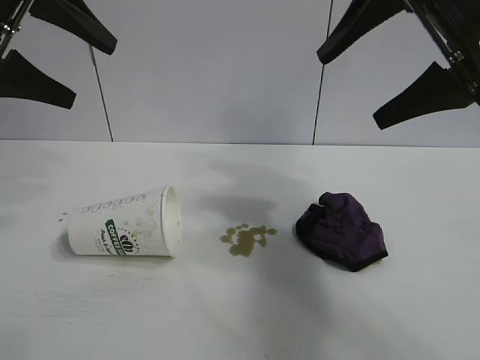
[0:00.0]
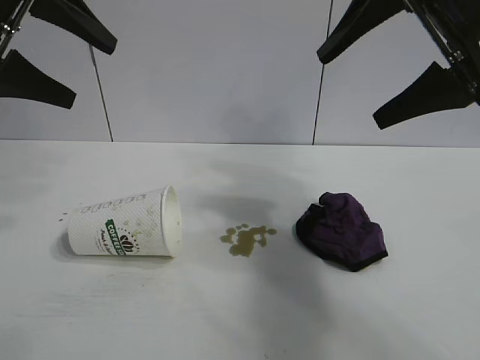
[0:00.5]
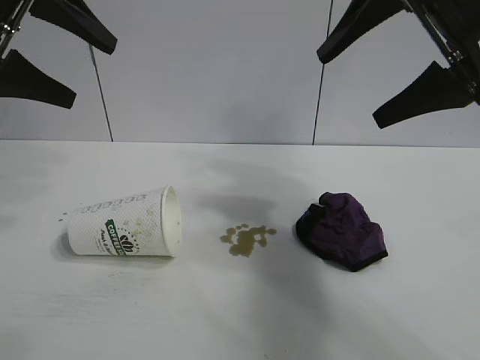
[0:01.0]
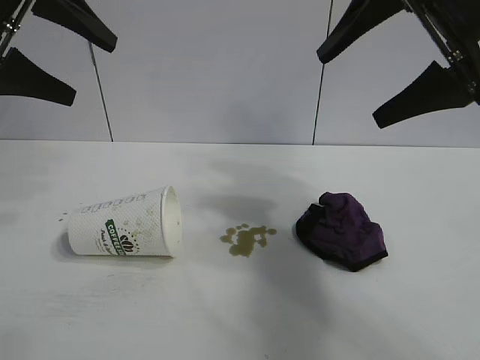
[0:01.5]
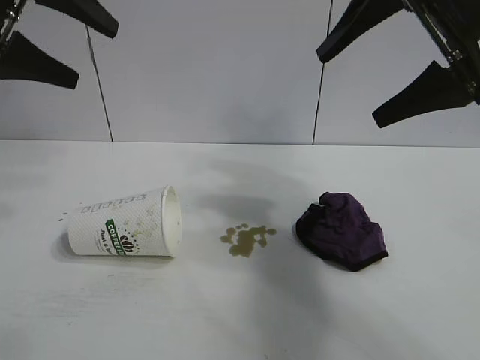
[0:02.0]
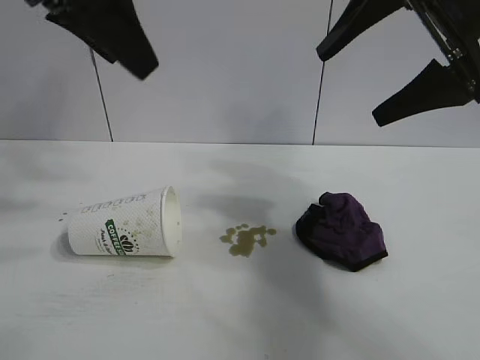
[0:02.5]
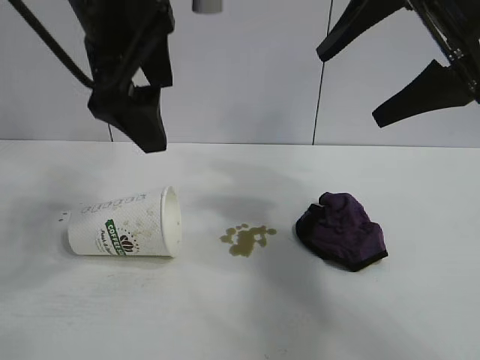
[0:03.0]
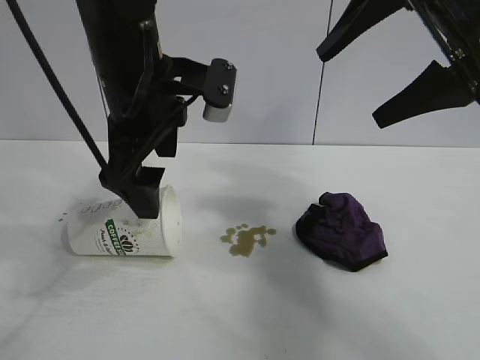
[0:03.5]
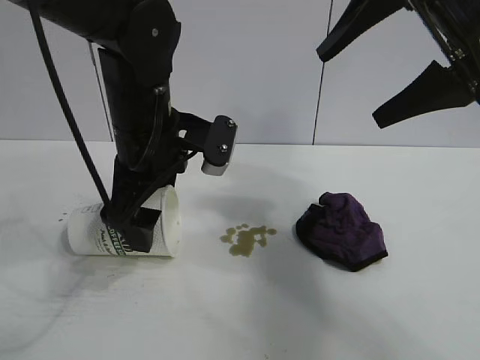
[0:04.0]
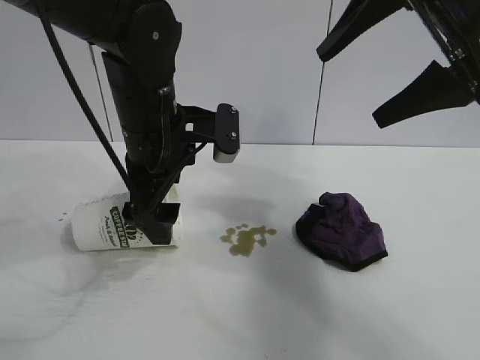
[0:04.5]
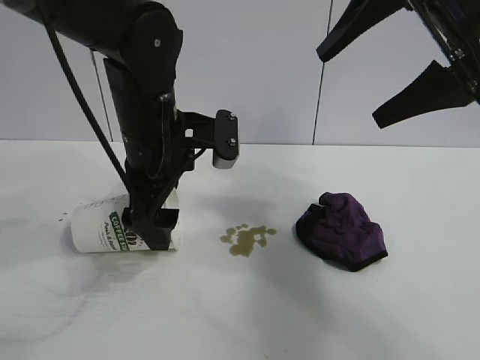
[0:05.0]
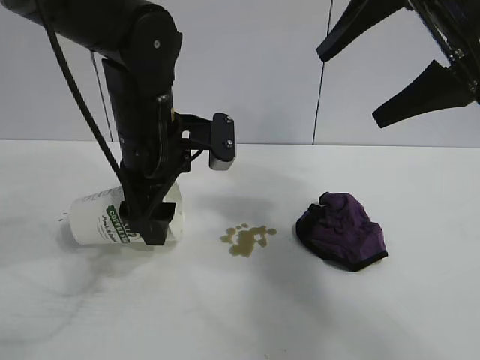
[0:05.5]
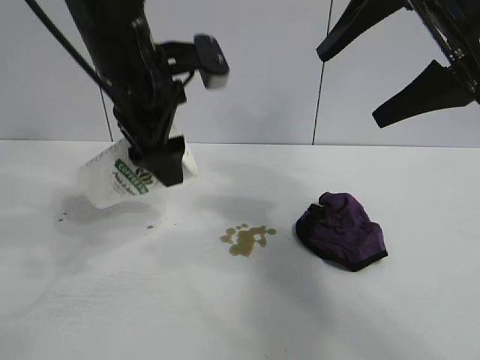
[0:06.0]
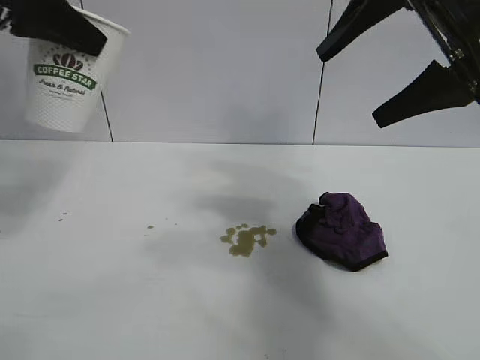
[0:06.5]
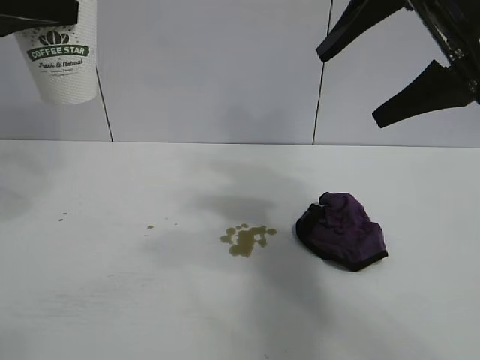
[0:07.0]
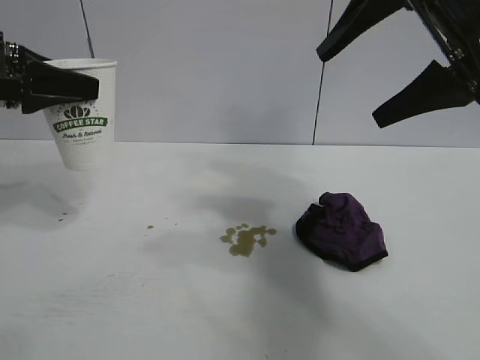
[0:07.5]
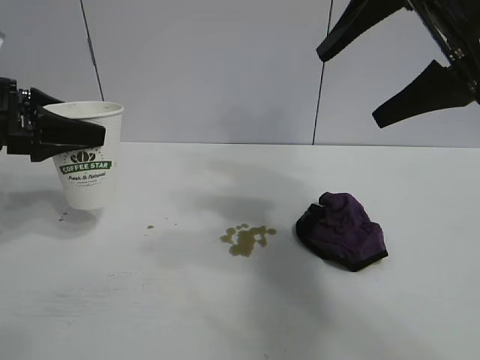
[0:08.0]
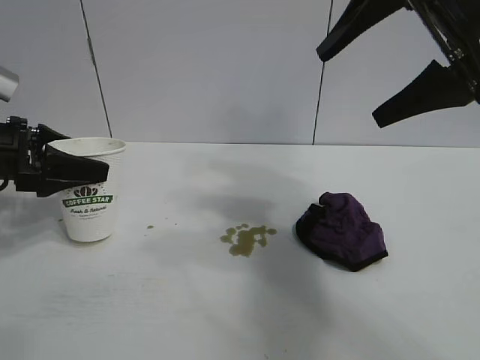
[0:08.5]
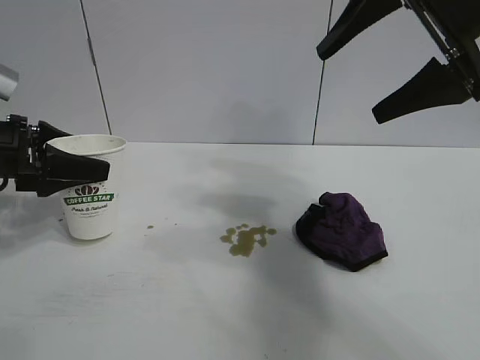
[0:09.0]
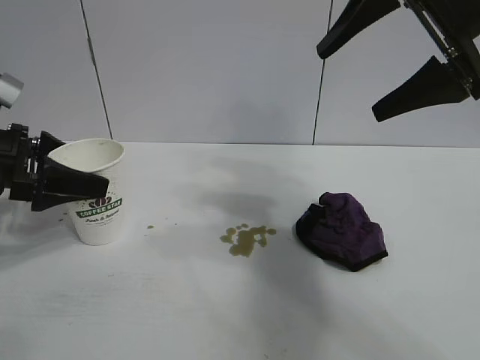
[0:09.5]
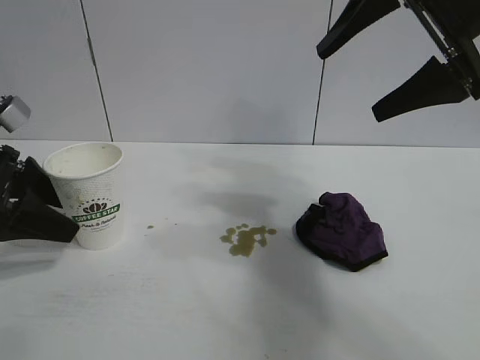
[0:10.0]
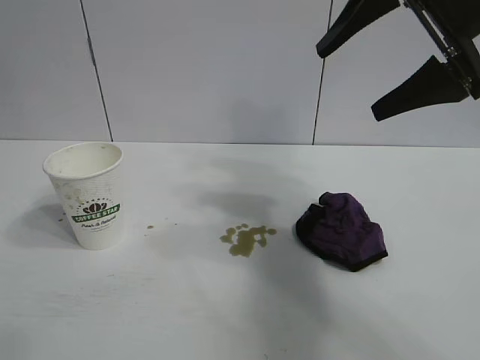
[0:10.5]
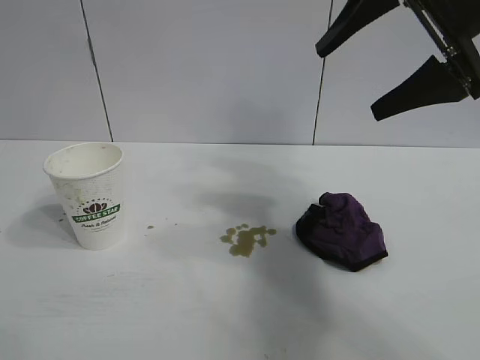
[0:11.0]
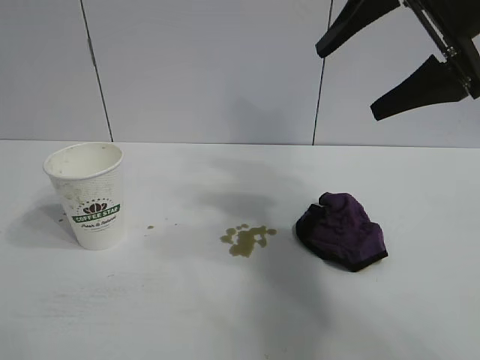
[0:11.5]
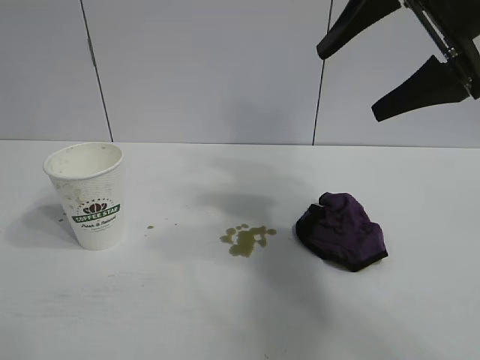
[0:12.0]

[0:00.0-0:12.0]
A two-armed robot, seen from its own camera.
Task of the whole recording: the left gripper pick up the fallen cup and place it upright, the right gripper grasp the black rag and wipe the stain on the table, the right gripper put the black rag back in its original position.
Step, 0:02.0 to 0:05.0: Grasp the paper cup with left gripper.
Step, 0:05.5 to 0:09.5: Stand the paper cup upright with left gripper.

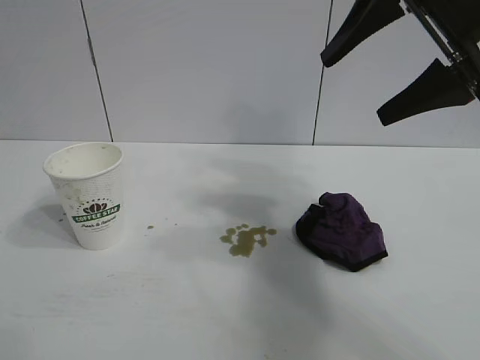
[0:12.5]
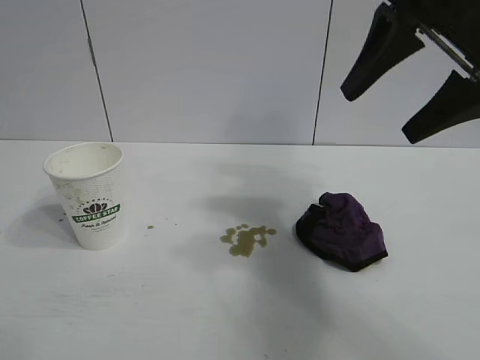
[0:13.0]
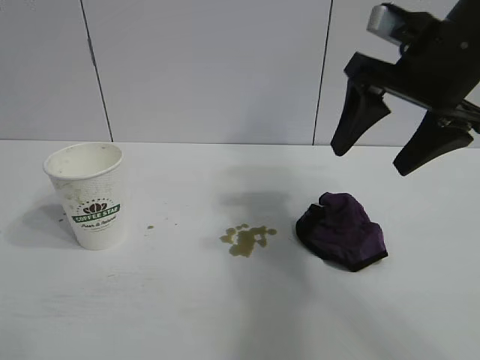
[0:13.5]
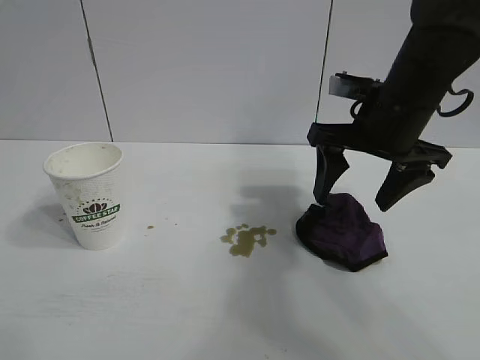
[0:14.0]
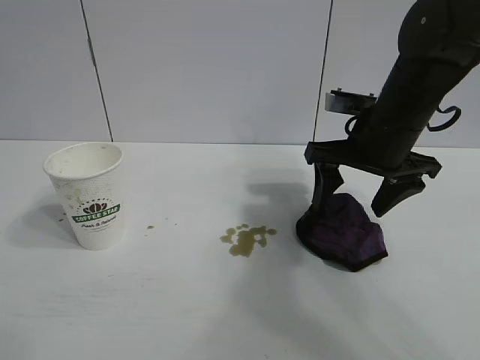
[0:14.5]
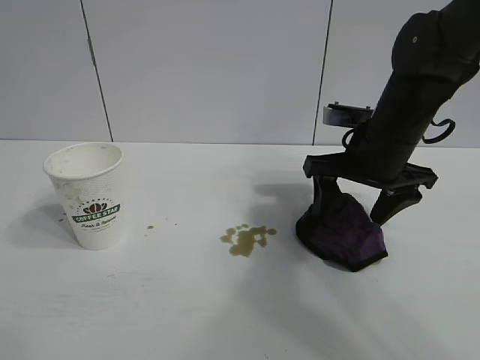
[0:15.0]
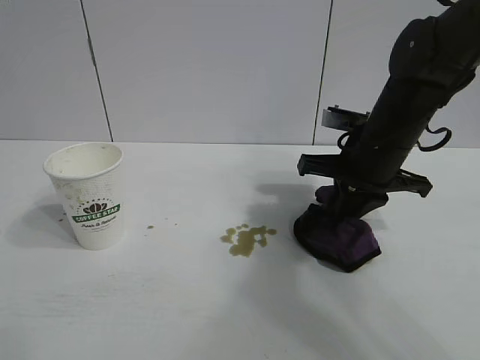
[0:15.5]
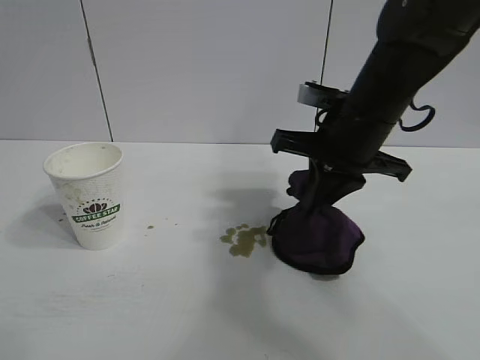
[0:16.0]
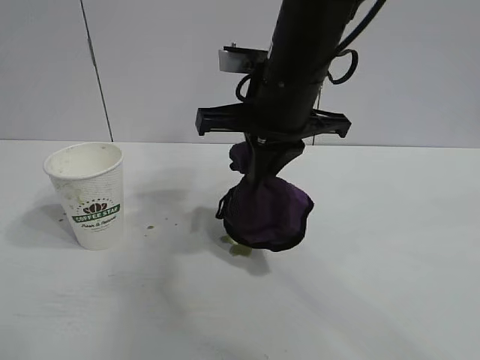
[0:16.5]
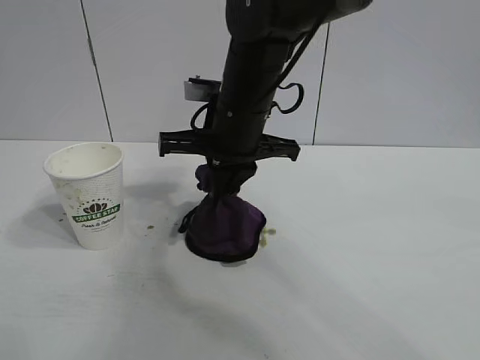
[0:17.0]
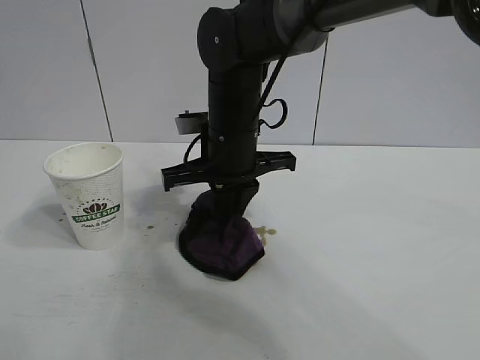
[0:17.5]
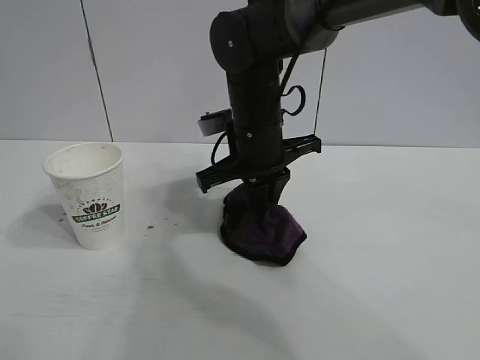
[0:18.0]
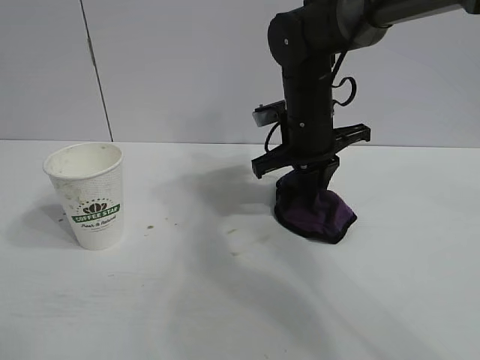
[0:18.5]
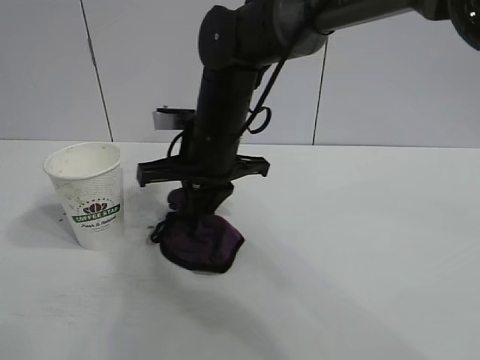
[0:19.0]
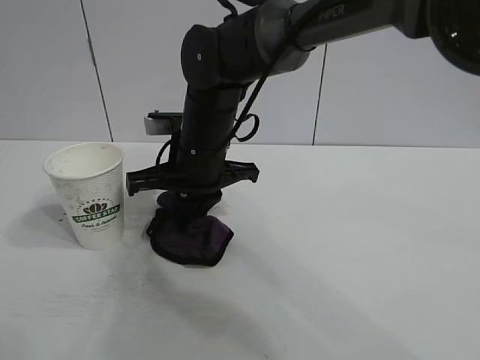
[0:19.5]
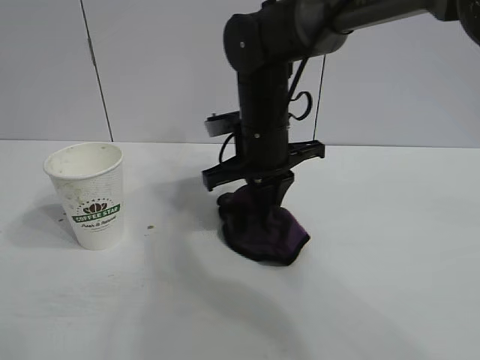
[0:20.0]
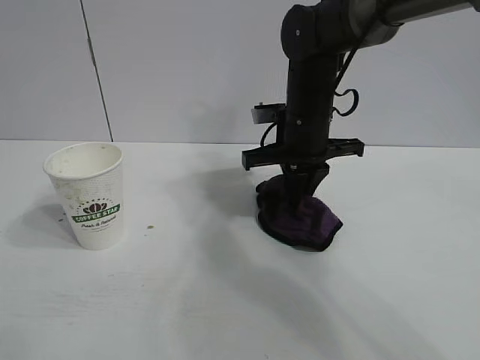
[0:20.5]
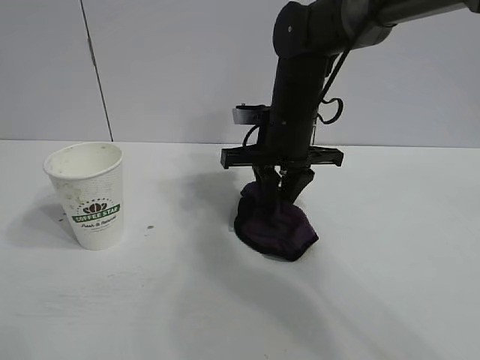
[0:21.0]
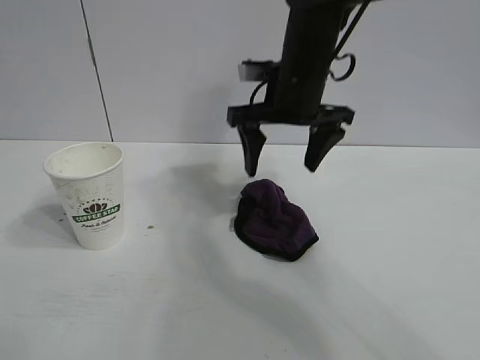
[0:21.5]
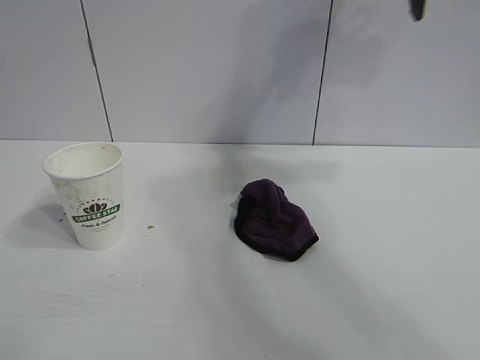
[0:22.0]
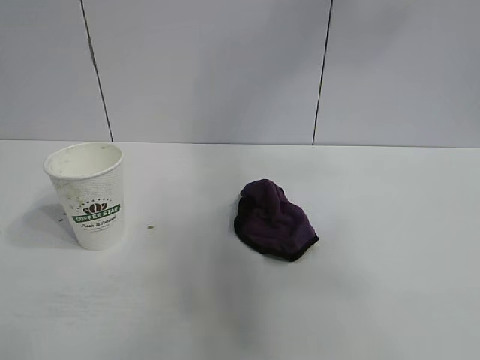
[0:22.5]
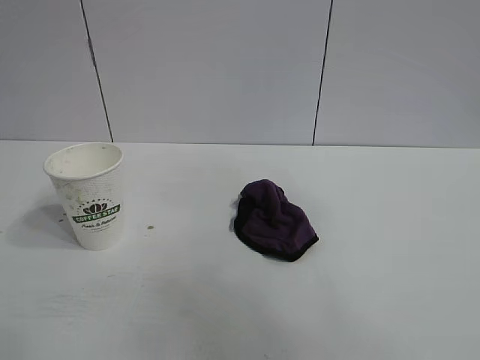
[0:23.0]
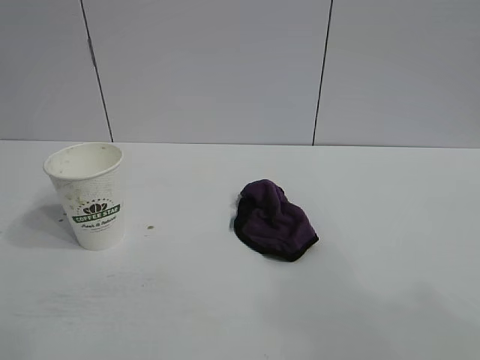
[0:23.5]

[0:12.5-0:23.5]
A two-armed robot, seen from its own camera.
Task of the whole recording: the left gripper pick up the fallen cup and place it upright, the right gripper grasp the black rag and wipe the stain on the table, the right gripper put the black rag back in its original position.
Step, 0:12.5 to 0:15.5: Grasp the rag with right gripper.
Step, 0:16.0 to 0:20.0: Wipe the stains off the table with the rag with right gripper.
